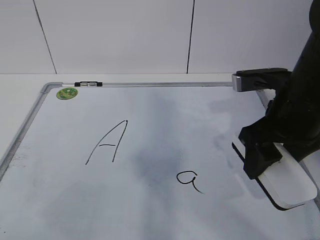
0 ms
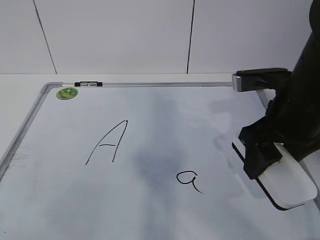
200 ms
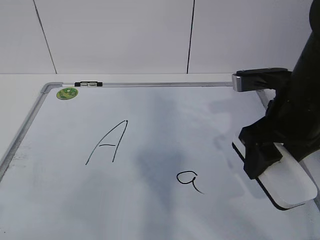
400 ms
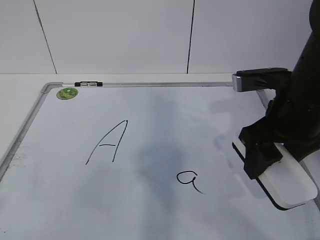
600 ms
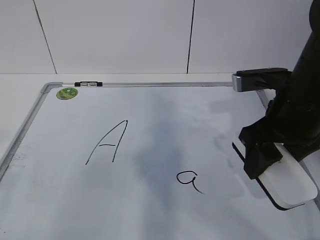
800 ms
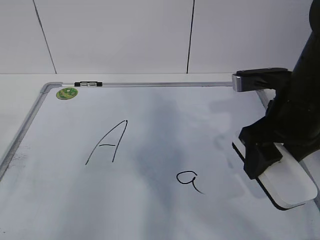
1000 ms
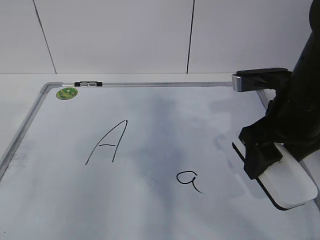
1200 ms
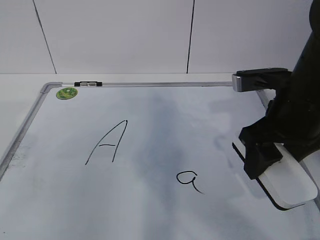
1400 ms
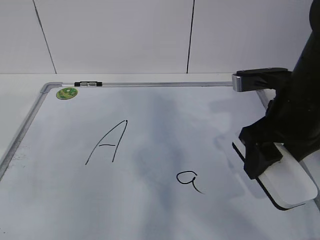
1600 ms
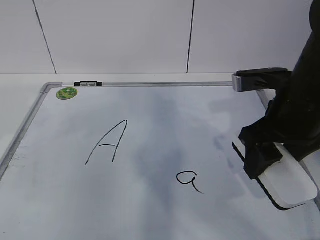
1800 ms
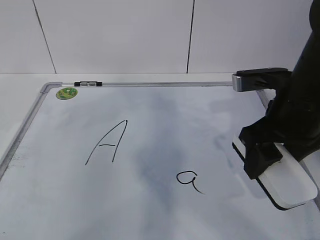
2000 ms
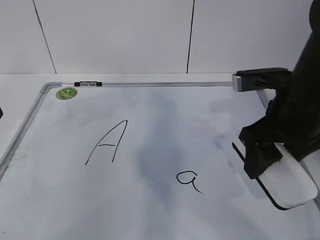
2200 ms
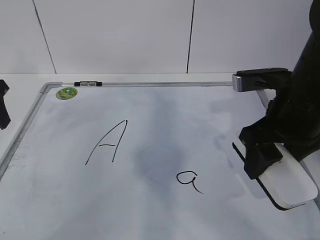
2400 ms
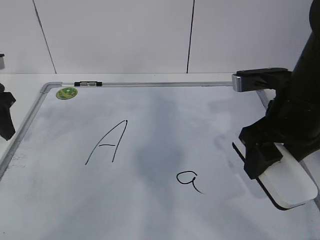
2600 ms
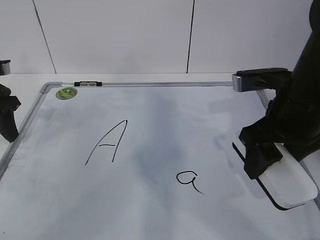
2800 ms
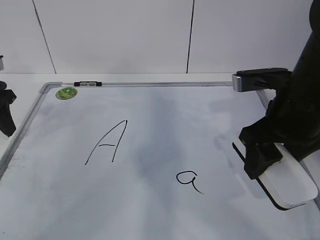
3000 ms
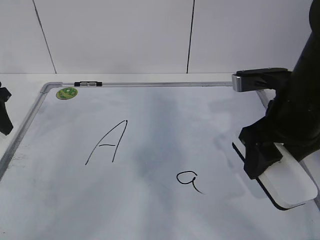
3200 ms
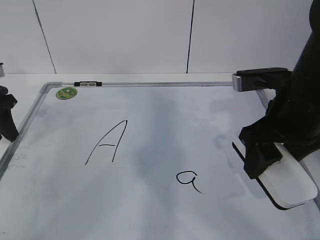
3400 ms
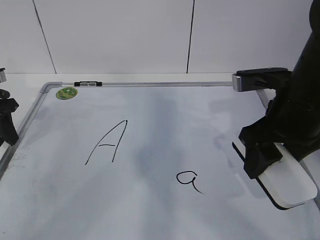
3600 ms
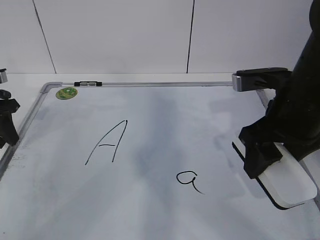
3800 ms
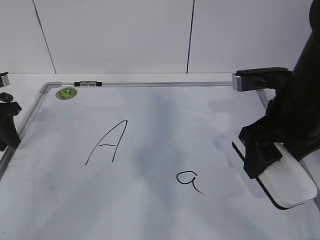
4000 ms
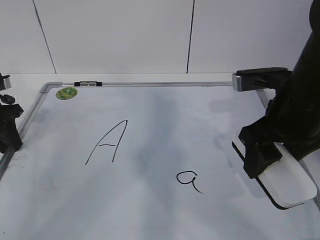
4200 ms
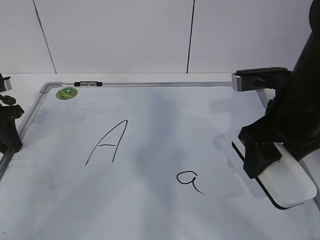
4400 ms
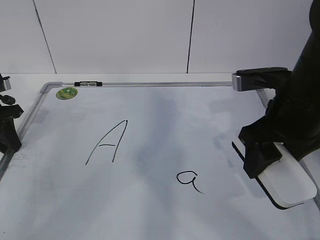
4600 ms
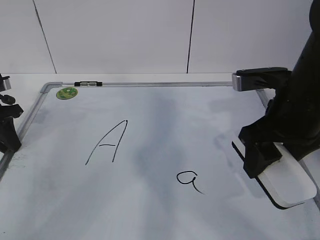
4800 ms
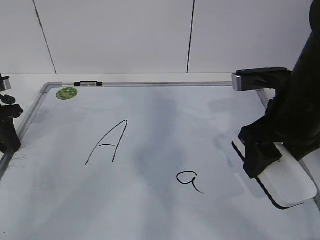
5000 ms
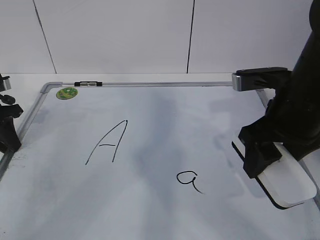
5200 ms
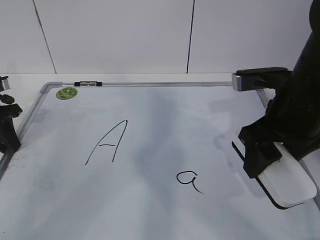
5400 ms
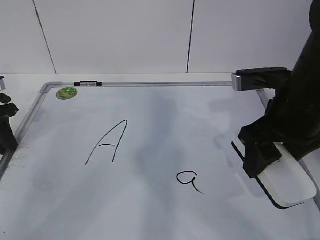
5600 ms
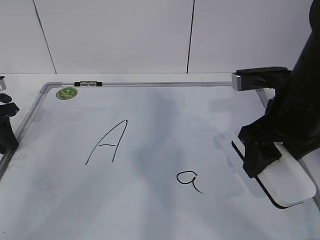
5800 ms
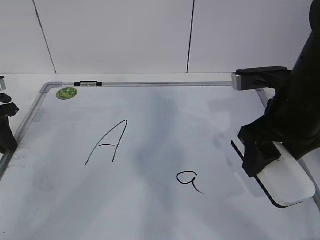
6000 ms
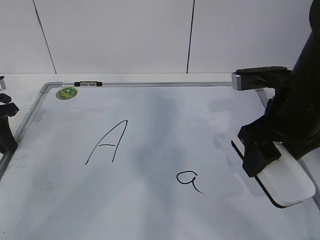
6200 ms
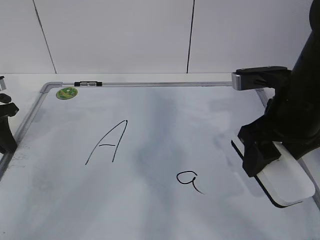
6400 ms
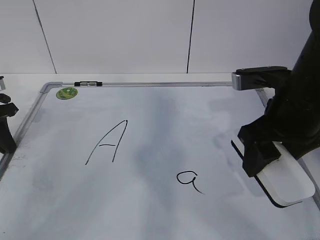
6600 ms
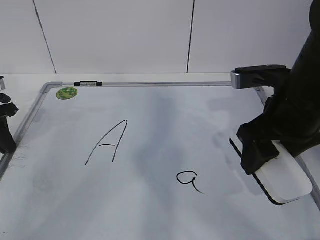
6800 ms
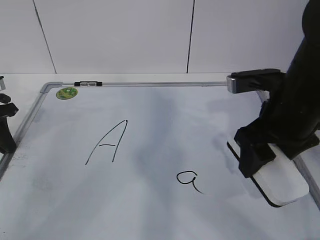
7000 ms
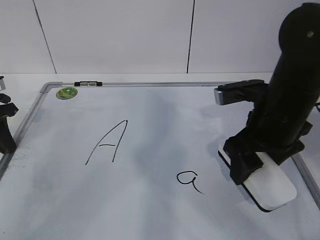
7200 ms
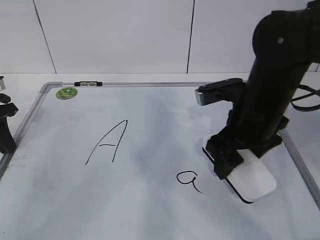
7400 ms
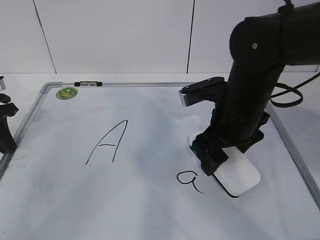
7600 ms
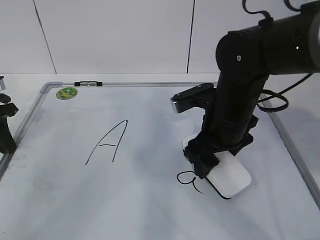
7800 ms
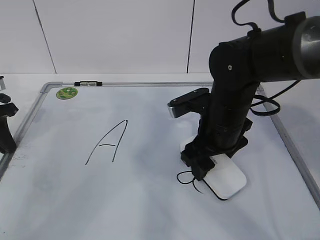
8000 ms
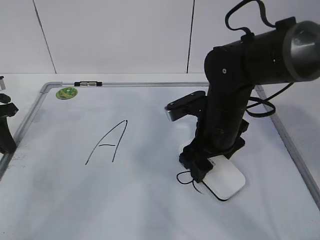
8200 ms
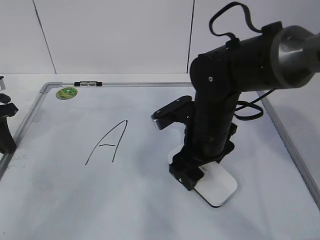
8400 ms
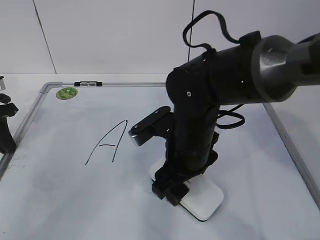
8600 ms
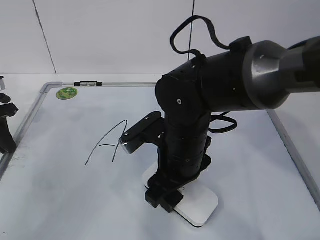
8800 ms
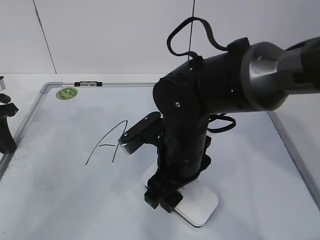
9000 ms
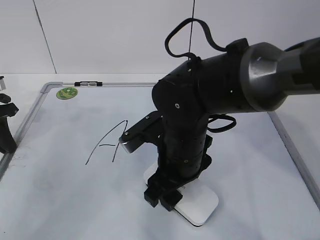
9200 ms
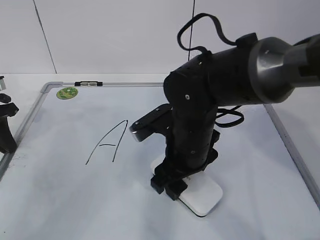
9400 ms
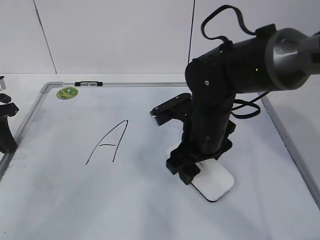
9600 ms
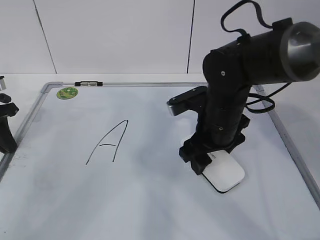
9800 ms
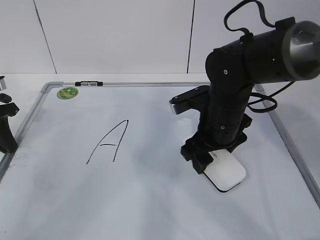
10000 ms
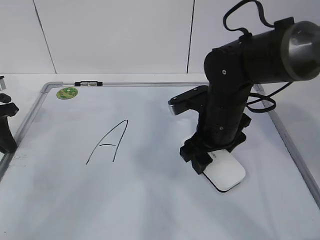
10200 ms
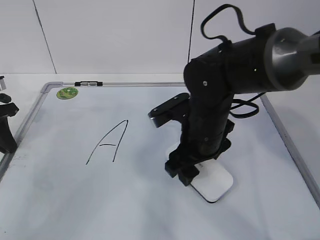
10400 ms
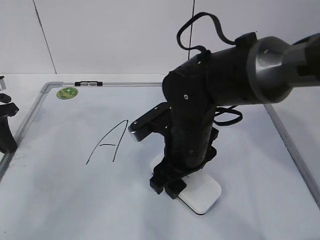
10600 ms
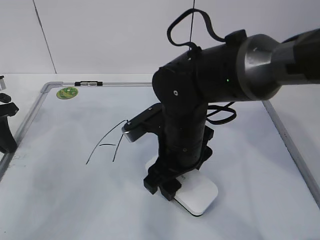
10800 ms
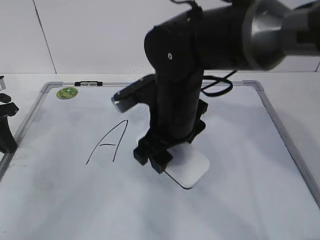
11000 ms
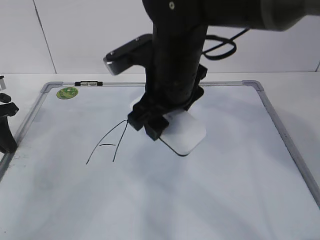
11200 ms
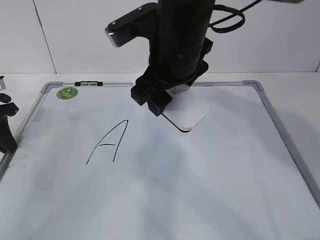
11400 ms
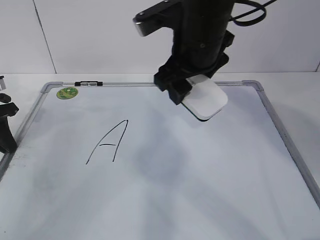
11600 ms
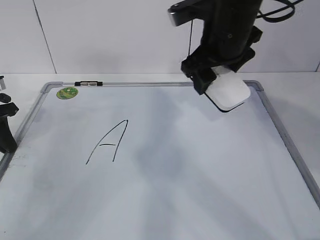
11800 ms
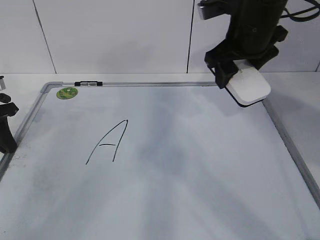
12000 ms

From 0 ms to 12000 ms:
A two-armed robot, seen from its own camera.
Task of the whole recording: pick up the eraser on the blackboard and erase the letter "a".
Step, from 6400 ms to 10400 ms: Put down the eraser with your right hand.
From 1600 ms to 3000 ms: The left gripper travels forward and downward by roughly 20 cm.
From 3000 ms to 4400 ms: The left gripper goes roughly 5 cm downward.
From 4400 ms to 6000 ms: Neither gripper changes place.
From 6000 ms to 7600 ms: The right gripper heads to the left, covering roughly 5 cm.
From 7600 ms to 9000 ms: The right gripper shifts some 10 cm to the left.
From 10400 ms to 12000 ms: The right gripper shifts about 15 cm upward, forward and to the right.

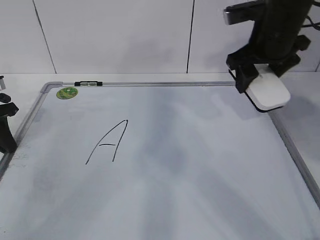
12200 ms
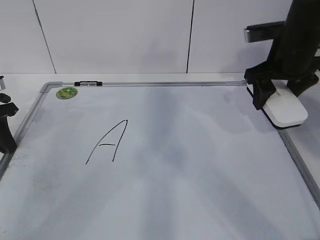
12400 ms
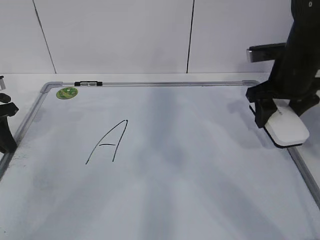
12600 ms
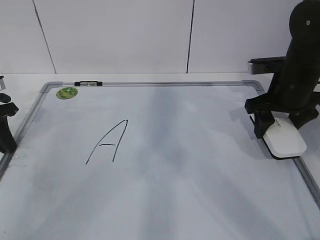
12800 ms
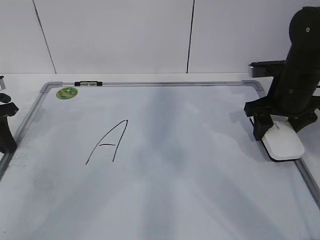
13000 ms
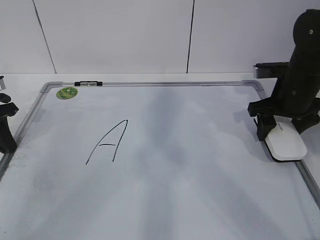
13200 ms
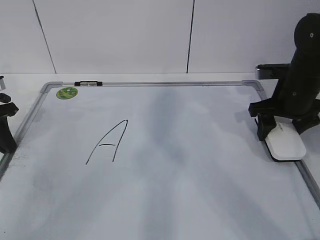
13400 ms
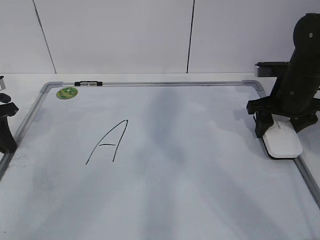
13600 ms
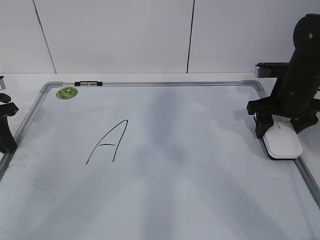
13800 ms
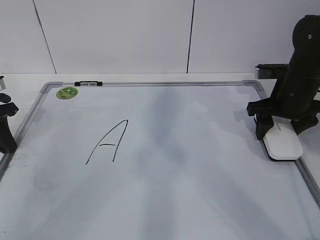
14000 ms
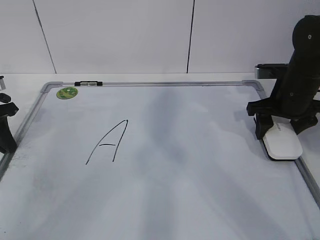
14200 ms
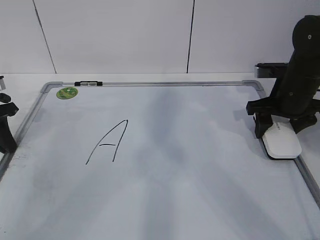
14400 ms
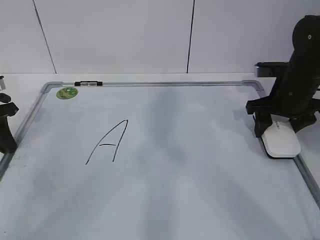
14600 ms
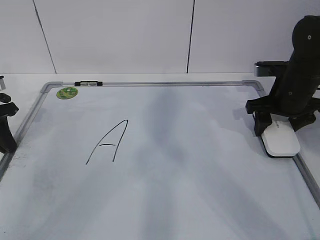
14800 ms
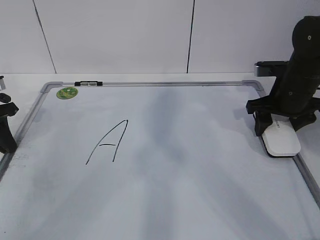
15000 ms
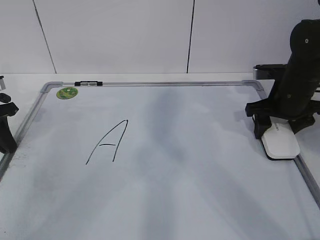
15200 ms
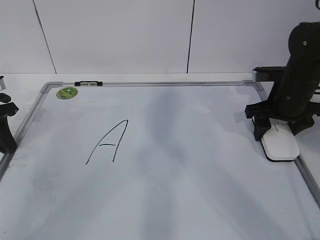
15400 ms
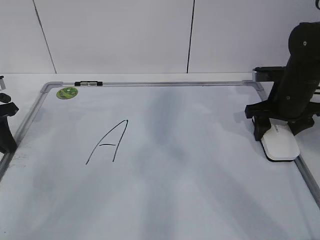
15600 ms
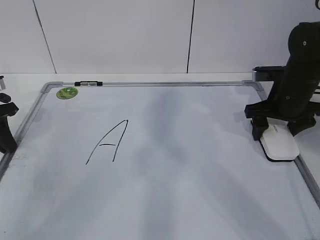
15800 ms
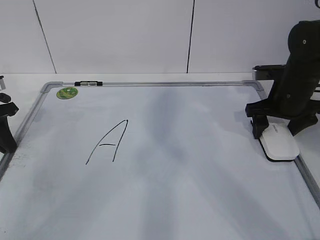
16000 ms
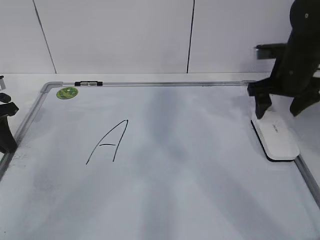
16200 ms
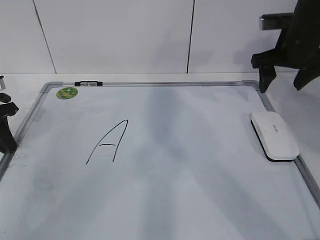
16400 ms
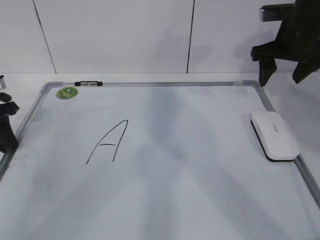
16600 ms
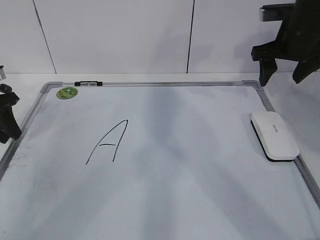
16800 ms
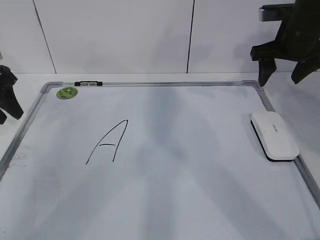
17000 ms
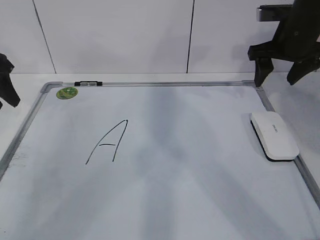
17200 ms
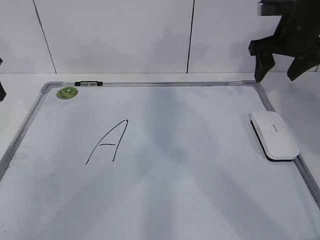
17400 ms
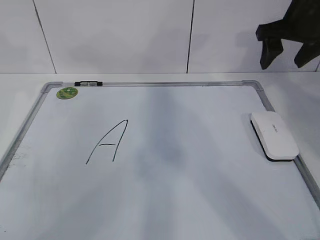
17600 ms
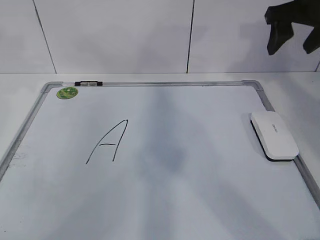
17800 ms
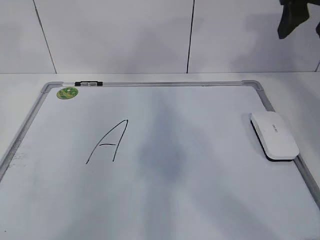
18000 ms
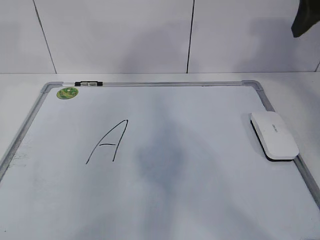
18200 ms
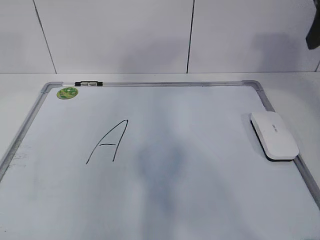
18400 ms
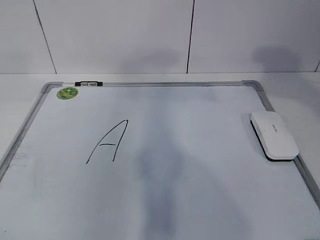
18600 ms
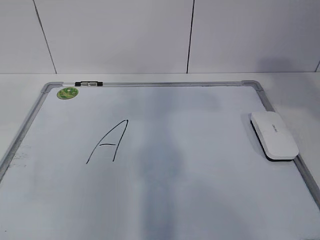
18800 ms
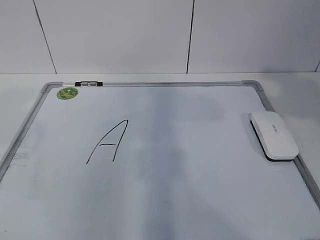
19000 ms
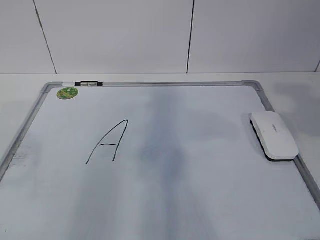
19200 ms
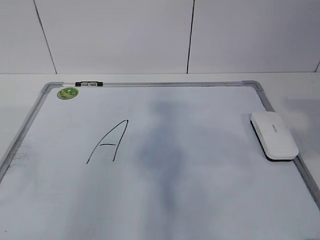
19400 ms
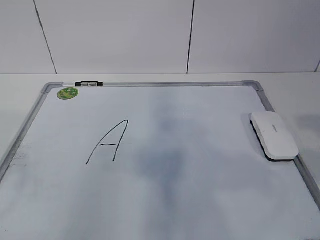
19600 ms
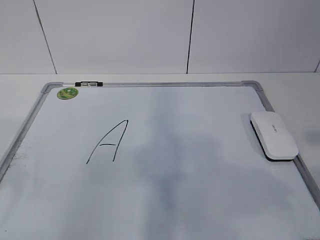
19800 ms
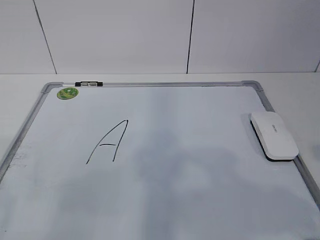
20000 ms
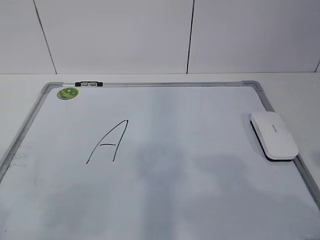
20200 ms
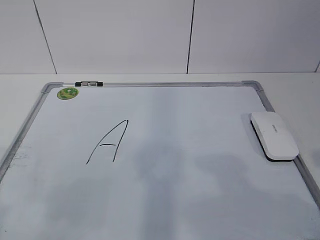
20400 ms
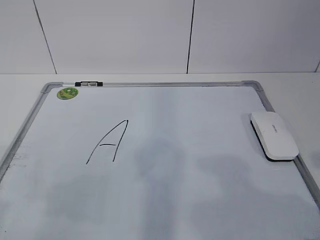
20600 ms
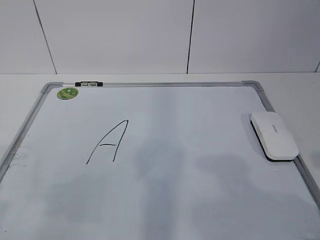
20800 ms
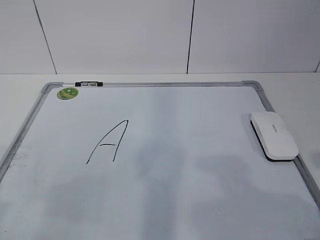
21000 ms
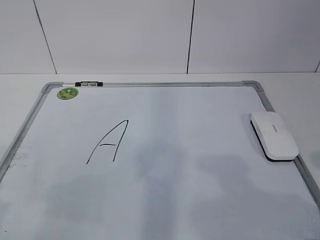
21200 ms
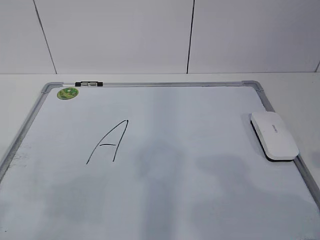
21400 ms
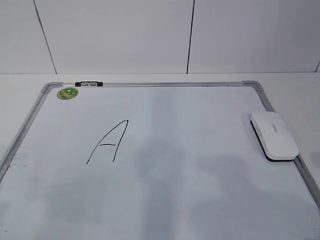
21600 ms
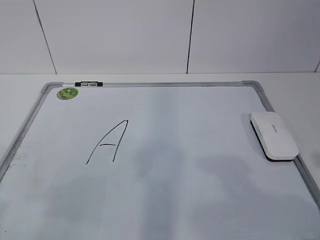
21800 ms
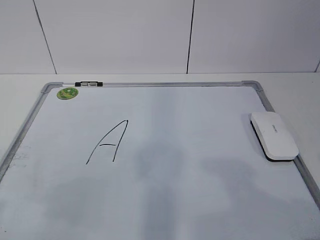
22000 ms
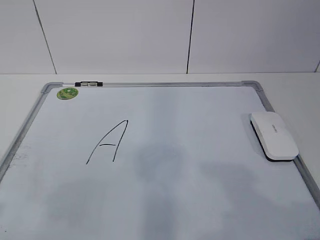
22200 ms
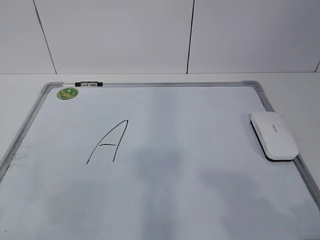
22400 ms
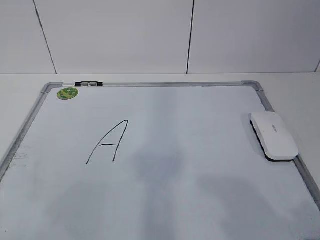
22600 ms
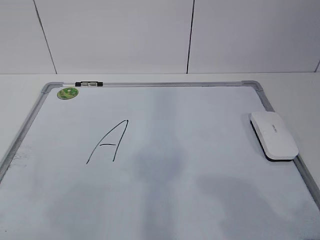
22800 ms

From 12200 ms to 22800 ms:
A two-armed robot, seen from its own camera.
Task of the whole recording: pick up the eraser on the blackboard and erase the letter "a".
From 12200 ms to 13800 ms: The right gripper goes some 10 cm downward and to the right.
From 13800 ms to 15200 ms: The two grippers keep their place.
From 15200 ms to 16800 ms: The left gripper opens its fingers, while the right gripper heads upward, covering roughly 10 cm, and opens its fingers.
From 16800 ms to 18200 ms: The left gripper is displaced upward by about 20 cm. Meanwhile the right gripper is displaced upward and backward by about 15 cm.
From 18200 ms to 19800 ms: The grippers both shift backward by about 25 cm.
